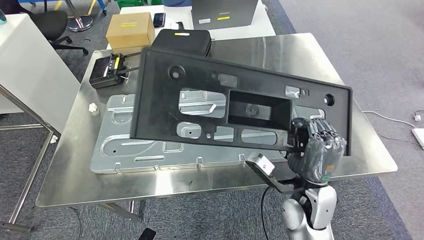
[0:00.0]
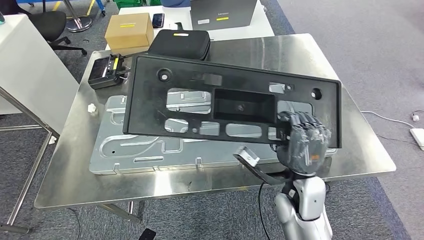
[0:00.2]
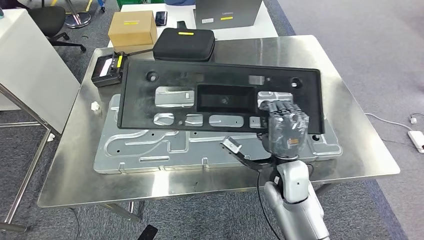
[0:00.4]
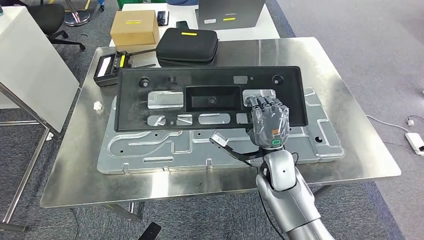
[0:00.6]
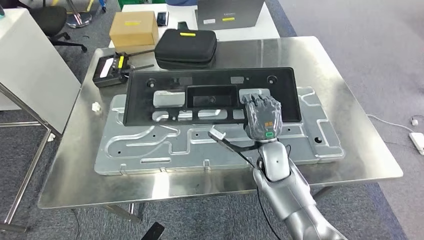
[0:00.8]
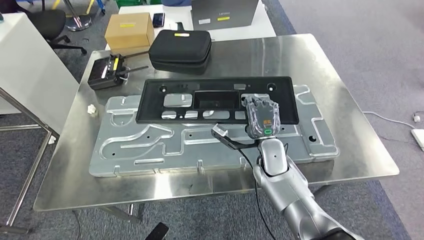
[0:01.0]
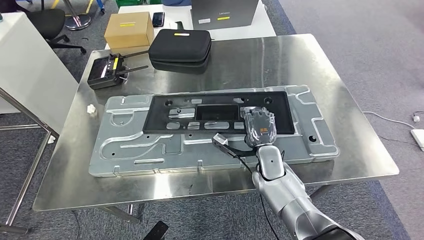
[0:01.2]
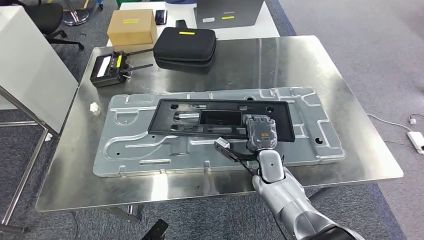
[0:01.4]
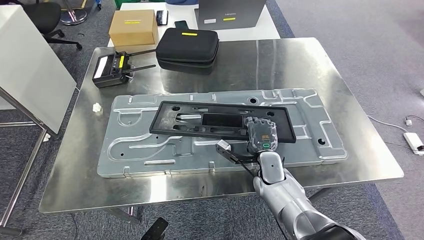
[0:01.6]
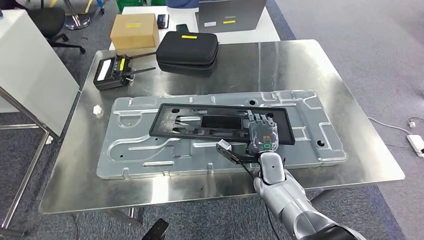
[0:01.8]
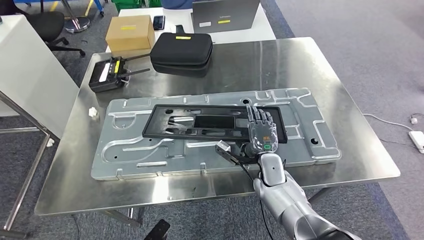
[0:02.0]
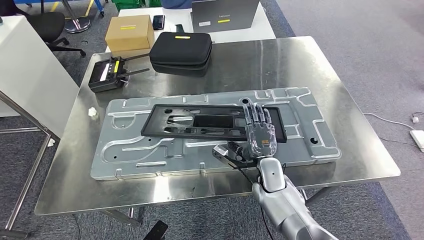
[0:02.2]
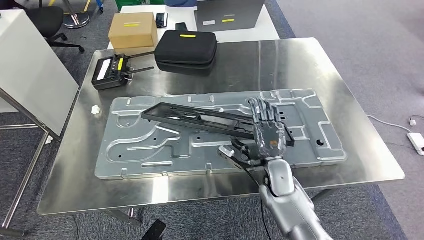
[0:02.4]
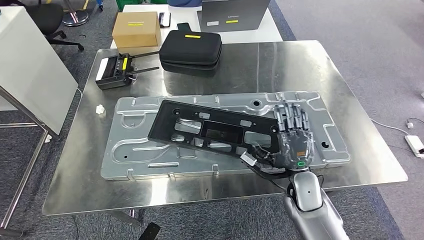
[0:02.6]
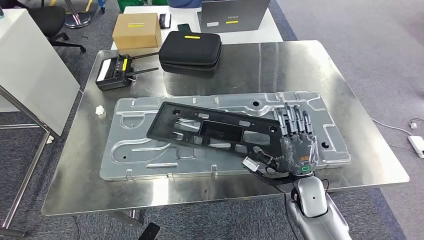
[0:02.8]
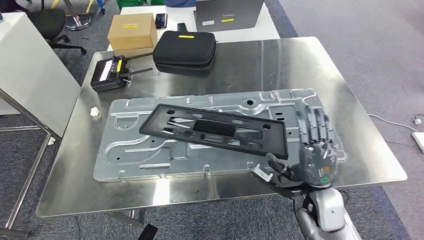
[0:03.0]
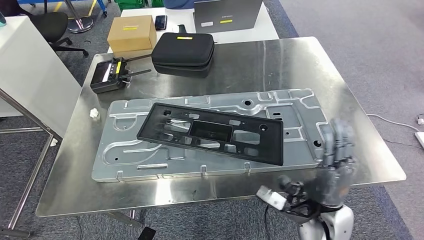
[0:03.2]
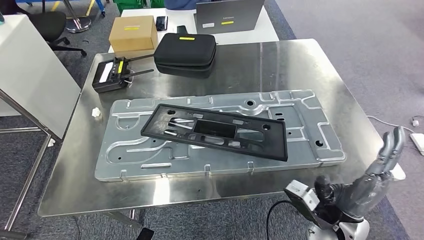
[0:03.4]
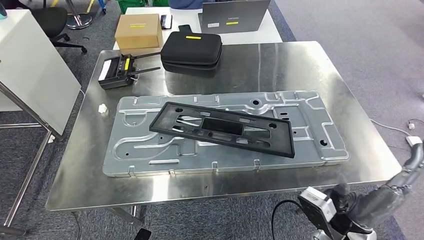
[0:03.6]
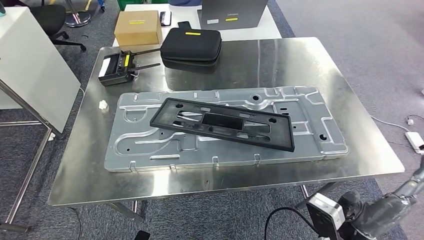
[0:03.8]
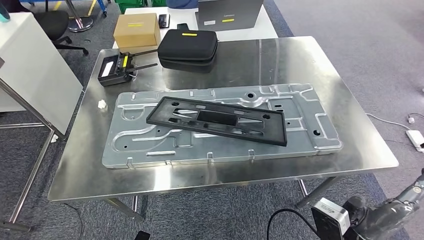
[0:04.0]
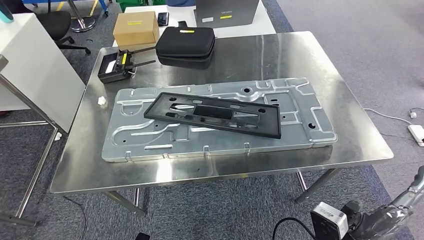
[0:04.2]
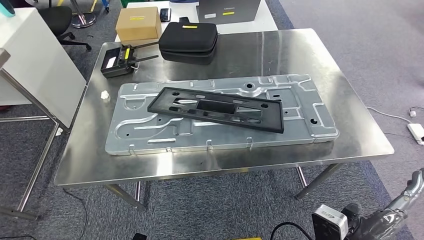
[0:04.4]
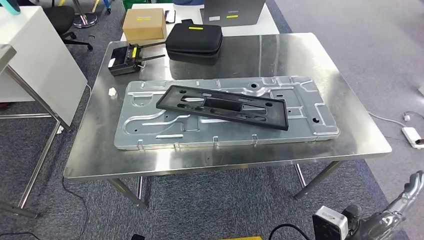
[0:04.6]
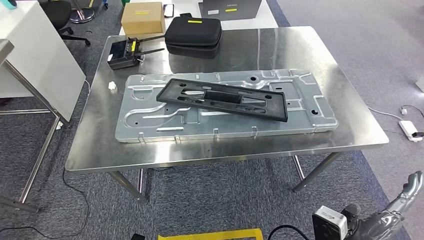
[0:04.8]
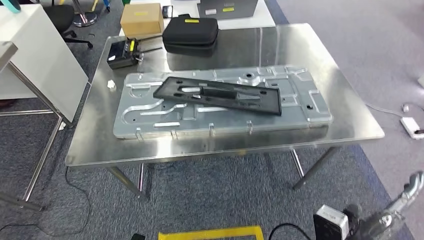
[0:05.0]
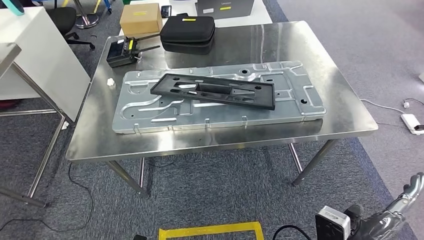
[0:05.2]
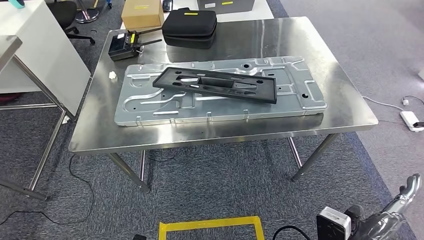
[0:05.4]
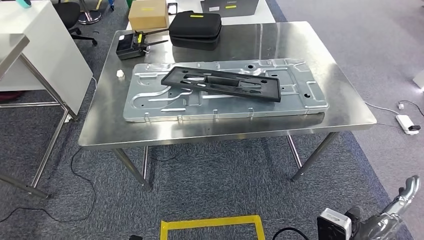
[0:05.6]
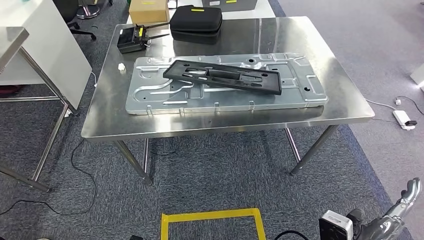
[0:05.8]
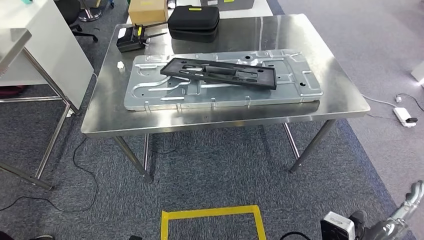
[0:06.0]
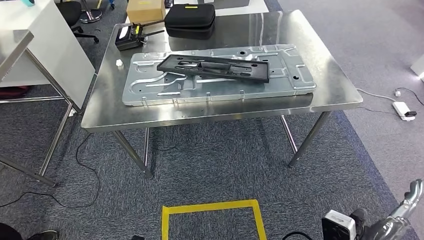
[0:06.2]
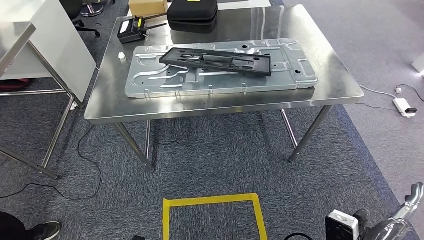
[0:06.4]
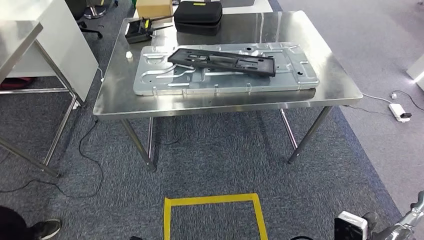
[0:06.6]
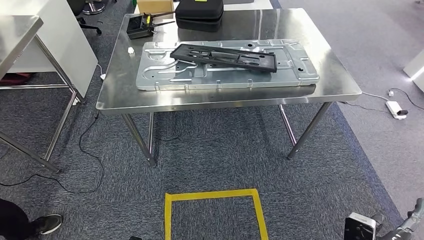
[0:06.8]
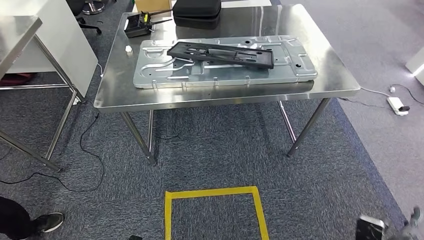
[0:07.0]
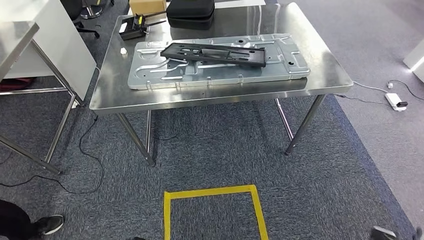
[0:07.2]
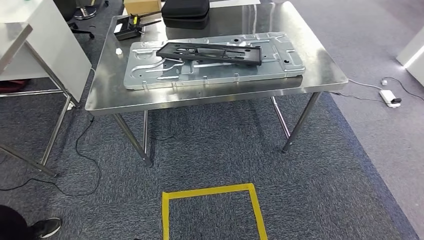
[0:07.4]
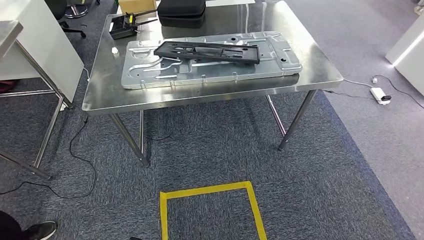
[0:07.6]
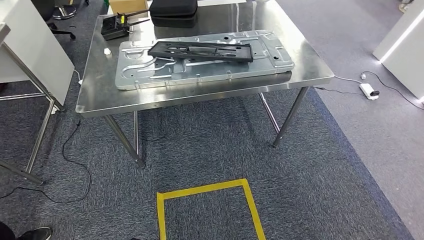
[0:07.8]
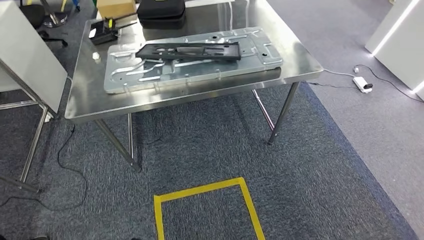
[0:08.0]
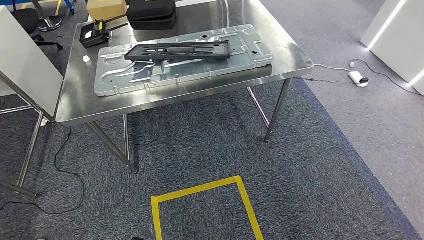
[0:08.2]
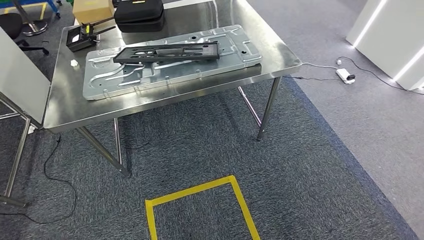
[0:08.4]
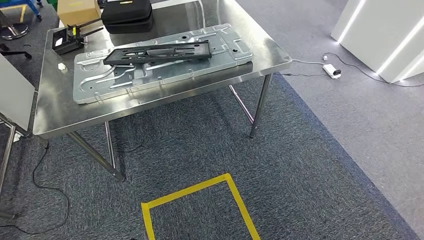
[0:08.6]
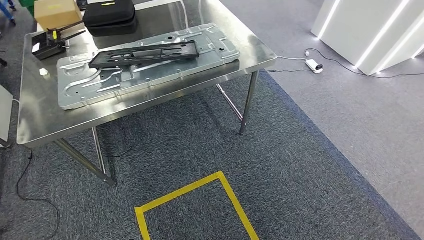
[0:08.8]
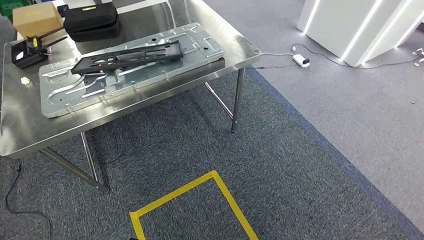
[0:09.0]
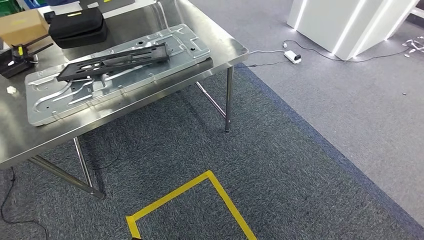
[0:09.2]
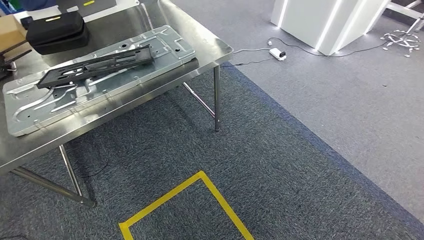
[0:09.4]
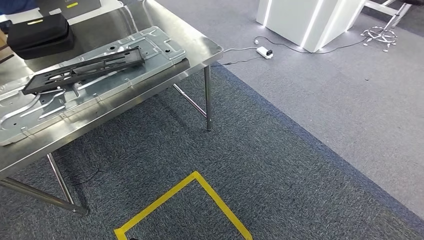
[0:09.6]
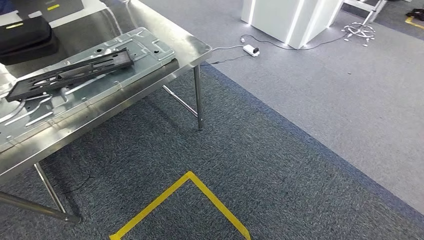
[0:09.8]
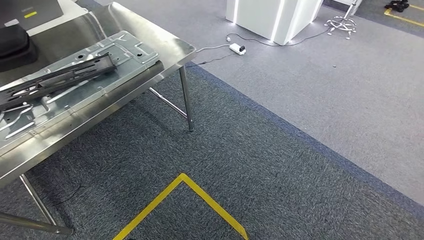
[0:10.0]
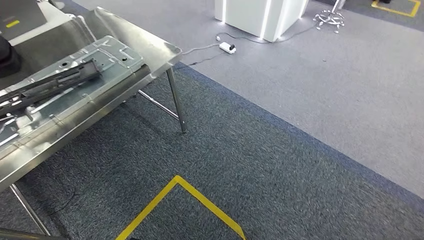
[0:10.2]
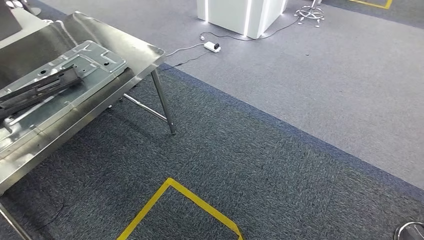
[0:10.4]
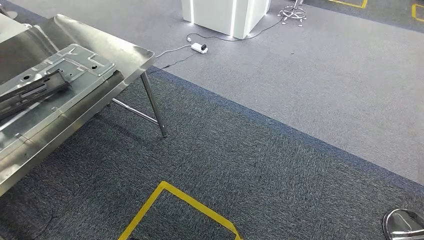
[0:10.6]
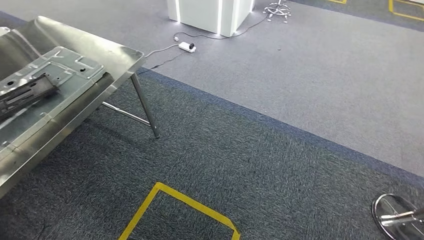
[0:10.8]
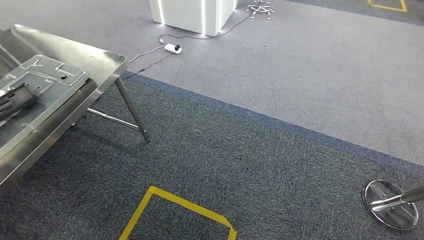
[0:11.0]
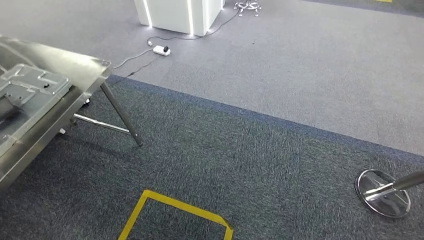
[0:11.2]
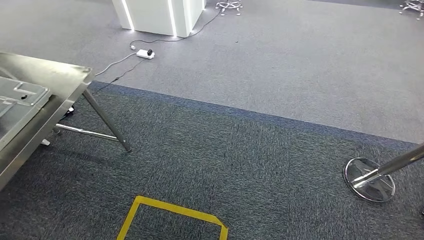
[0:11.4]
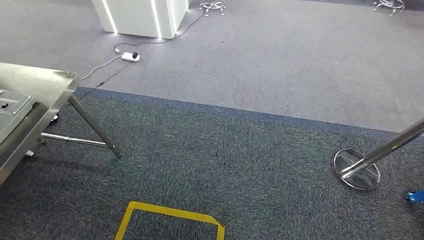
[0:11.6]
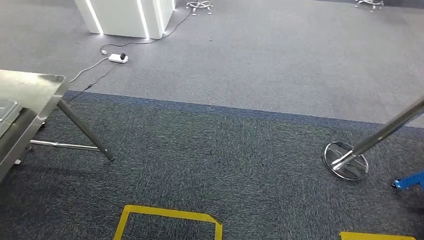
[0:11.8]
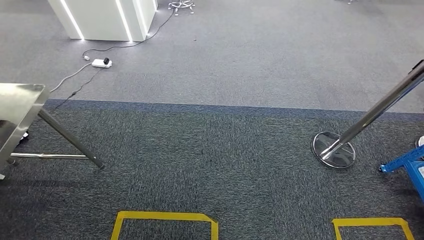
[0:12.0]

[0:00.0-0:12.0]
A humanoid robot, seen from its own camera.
Step, 0:00.0 to 0:05.0: Insert the large material into the corresponding hole on the workbench.

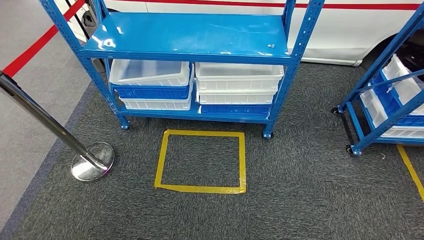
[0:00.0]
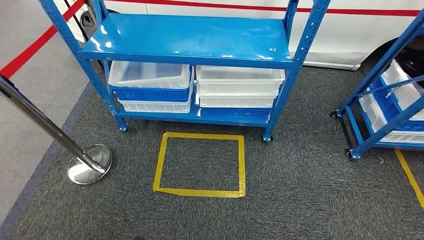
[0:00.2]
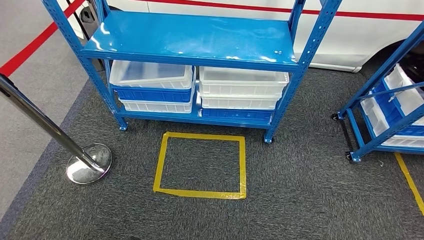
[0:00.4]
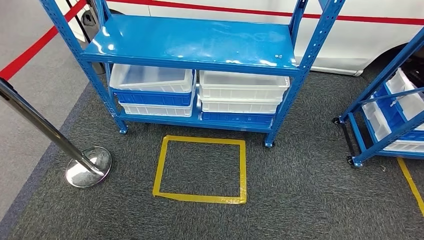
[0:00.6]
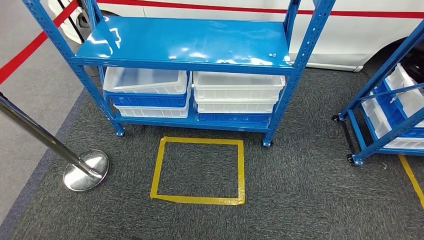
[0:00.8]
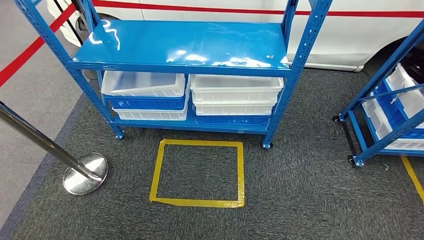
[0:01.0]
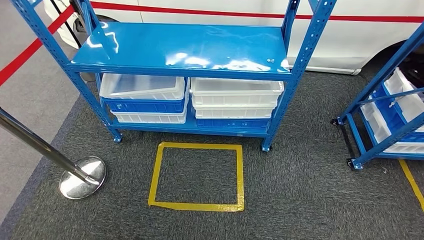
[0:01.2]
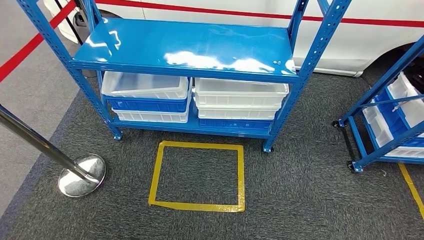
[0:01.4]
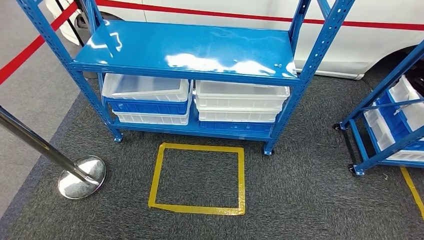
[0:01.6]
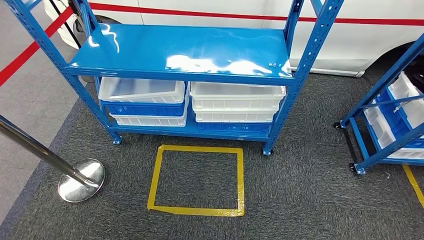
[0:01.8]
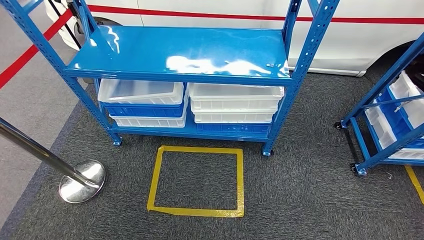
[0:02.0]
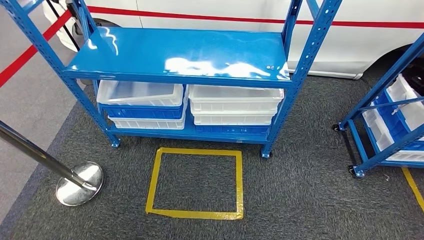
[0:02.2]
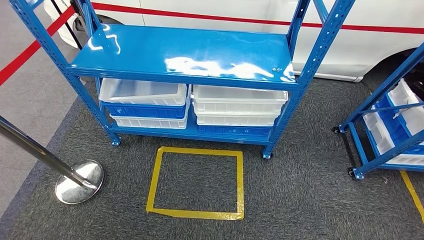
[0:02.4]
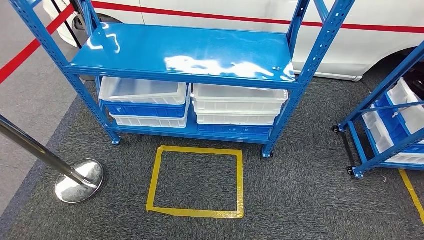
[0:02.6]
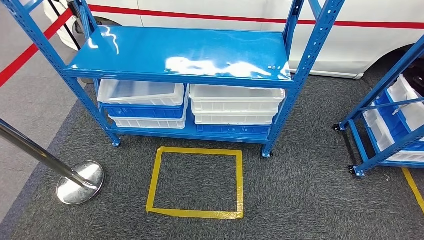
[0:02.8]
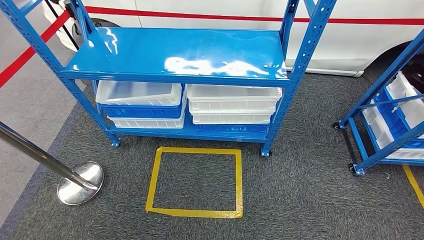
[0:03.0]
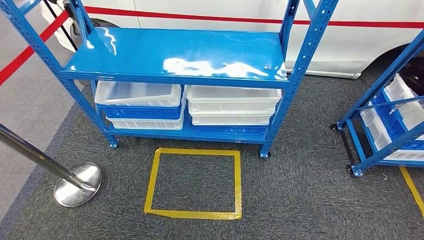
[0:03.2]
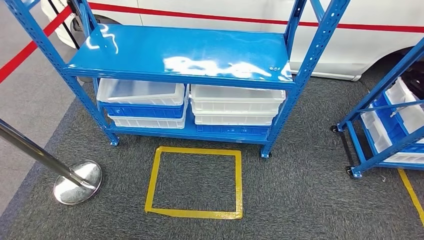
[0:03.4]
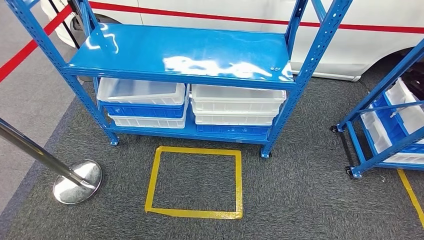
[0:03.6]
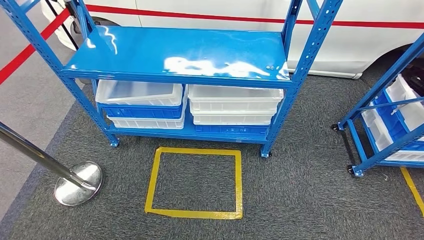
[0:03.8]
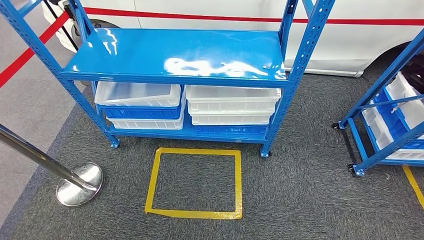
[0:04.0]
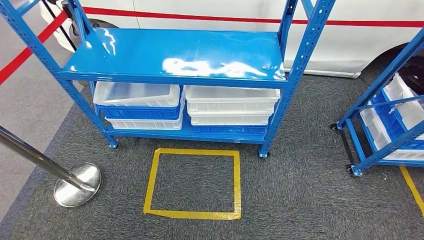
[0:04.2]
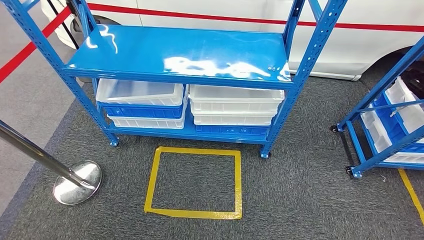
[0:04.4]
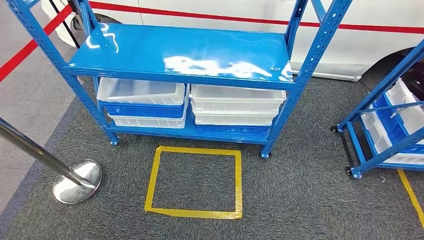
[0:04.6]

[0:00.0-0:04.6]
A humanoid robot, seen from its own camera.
Step, 0:00.0 to 0:04.4: Move to the initial position of the shelf.
